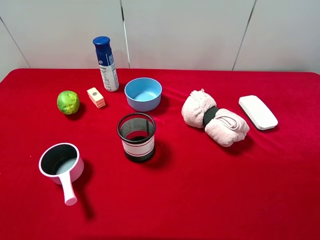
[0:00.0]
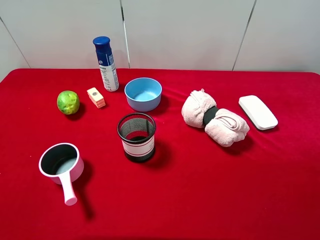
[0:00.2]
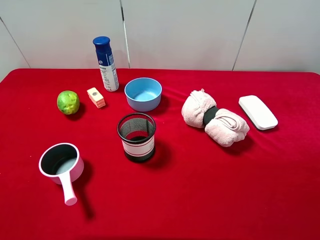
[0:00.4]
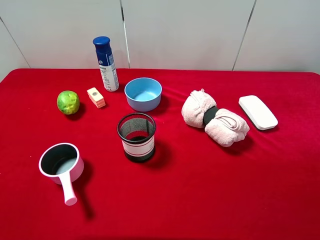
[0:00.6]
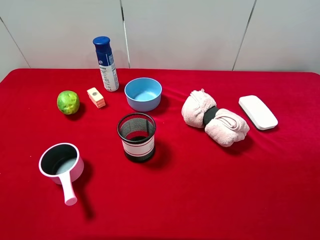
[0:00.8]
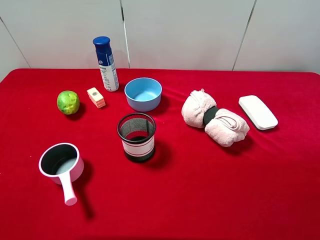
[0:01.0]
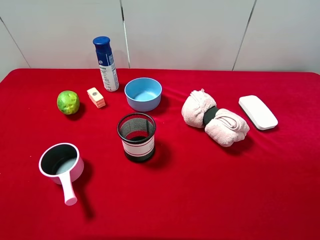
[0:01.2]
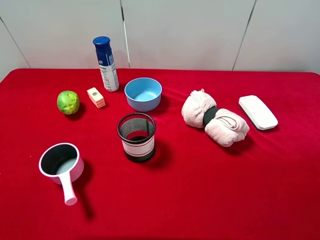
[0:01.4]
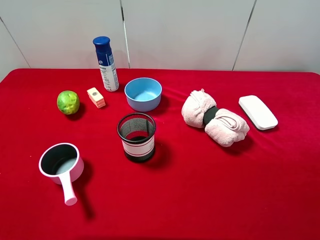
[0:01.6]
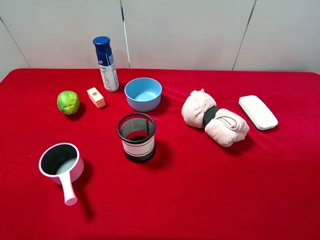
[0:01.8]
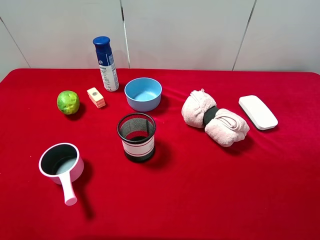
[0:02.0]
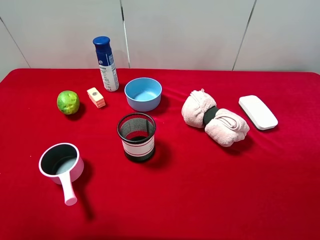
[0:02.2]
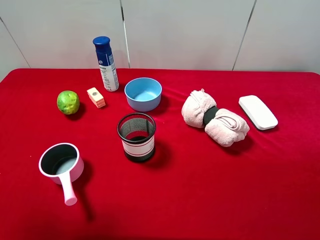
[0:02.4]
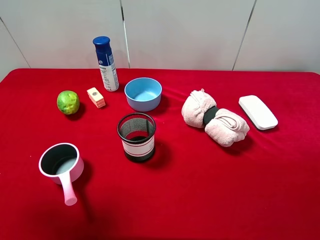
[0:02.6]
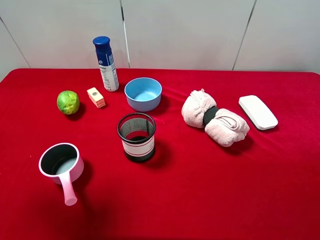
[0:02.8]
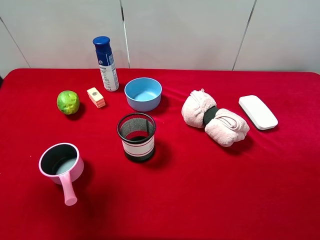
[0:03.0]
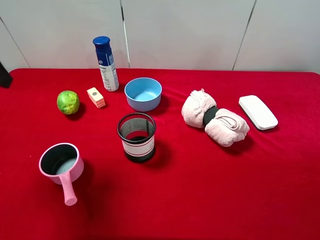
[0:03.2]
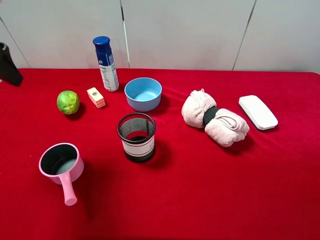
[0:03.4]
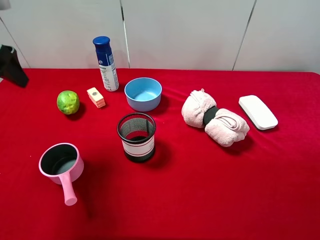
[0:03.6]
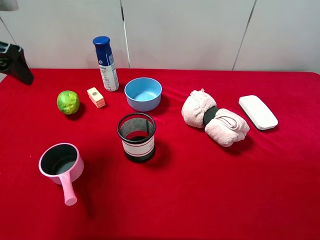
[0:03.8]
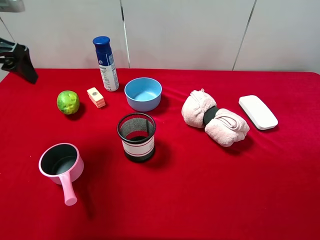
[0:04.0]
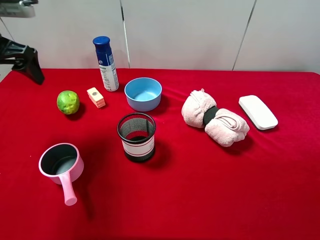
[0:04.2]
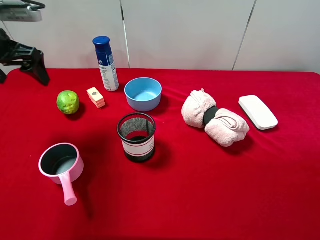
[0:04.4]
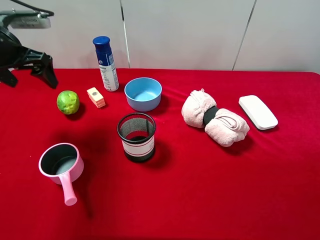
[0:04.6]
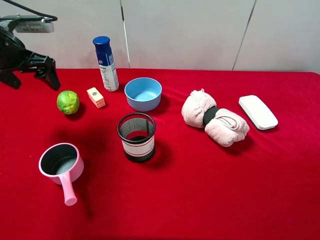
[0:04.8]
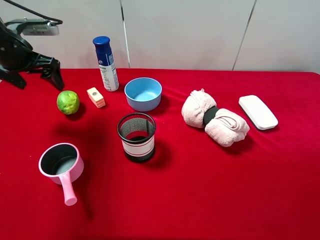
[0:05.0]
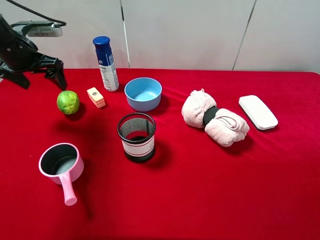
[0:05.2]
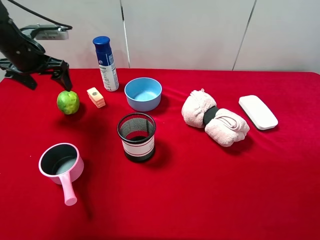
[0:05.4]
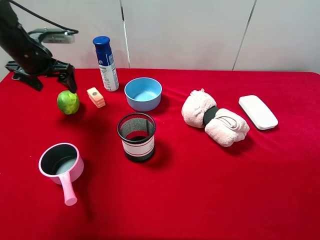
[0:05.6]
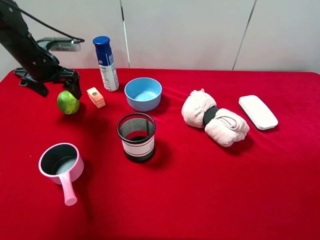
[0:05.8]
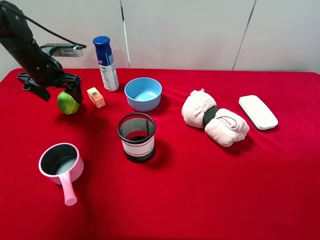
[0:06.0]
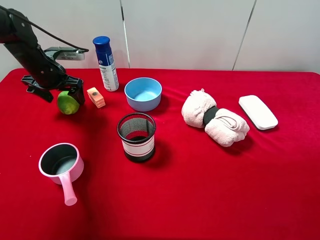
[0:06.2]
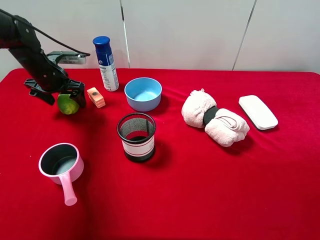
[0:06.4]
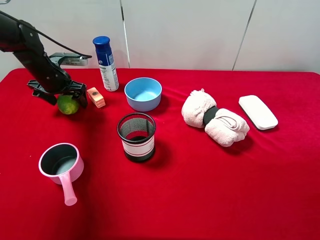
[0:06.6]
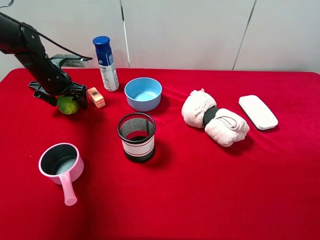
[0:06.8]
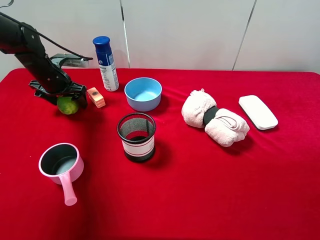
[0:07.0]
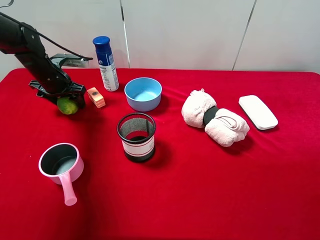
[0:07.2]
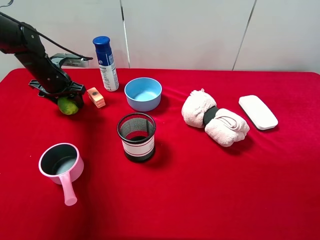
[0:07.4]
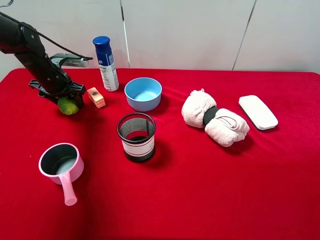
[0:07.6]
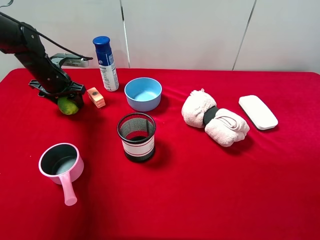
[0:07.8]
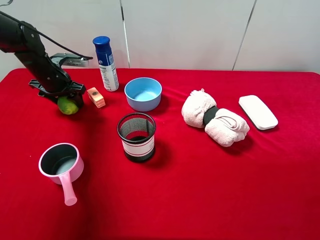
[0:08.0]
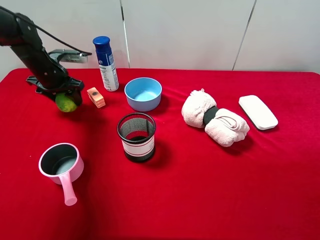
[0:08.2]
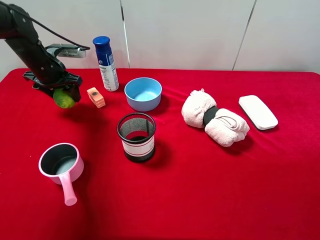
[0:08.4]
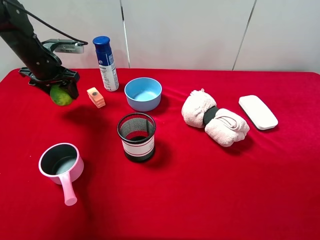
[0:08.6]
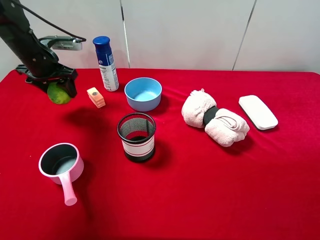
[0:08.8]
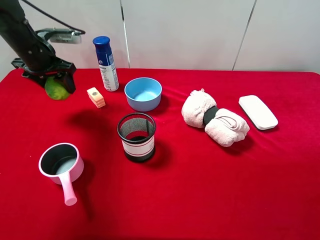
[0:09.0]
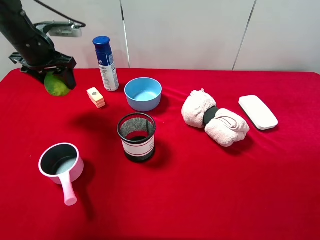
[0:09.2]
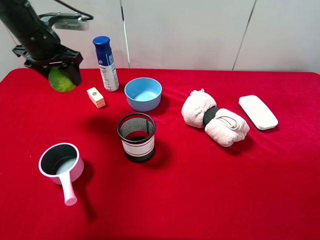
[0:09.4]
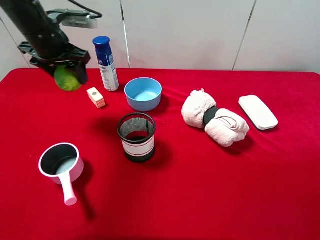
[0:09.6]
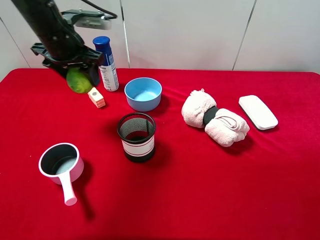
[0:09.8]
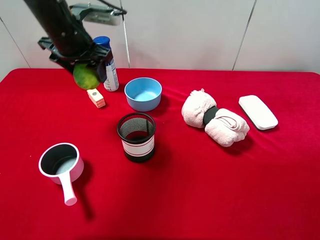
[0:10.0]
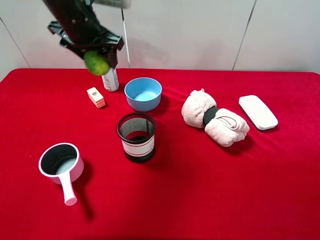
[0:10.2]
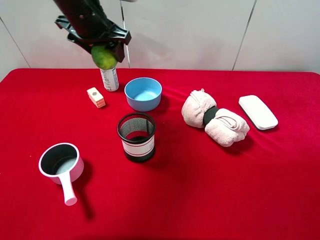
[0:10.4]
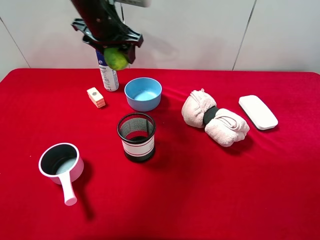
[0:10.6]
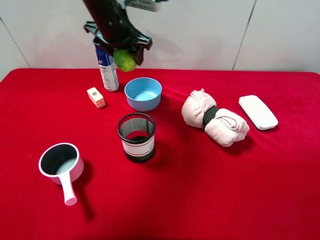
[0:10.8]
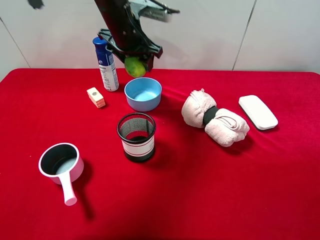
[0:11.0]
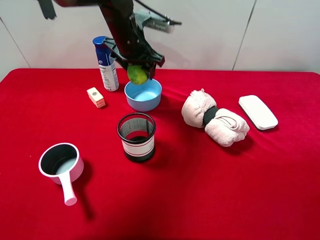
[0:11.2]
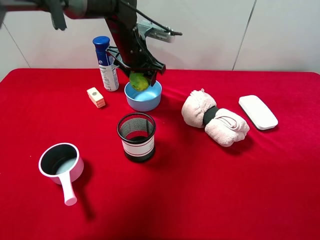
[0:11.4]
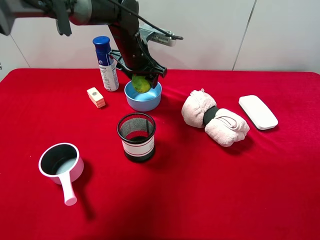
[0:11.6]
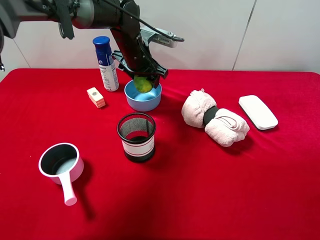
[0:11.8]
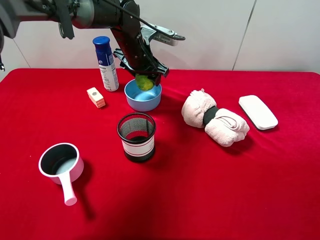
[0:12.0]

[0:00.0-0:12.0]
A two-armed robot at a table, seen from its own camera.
Task of the whole recording: pick up an item with a gripper and place it in a random container on the desktop.
0:01.6 to 0:03.0: The left gripper is displaced forward by some 20 cm.
0:03.0 to 0:04.4: The left gripper moves forward and downward, approximately 15 cm.
0:04.4 to 0:06.0: The left gripper is displaced downward and forward by about 15 cm.
0:06.0 to 0:07.6: The left gripper closes its fingers.
0:07.6 to 0:09.0: The left gripper is displaced upward by about 10 cm.
0:09.0 to 0:10.4: The left gripper moves to the right and upward, about 15 cm.
0:10.4 to 0:12.0: The left gripper goes about 15 cm downward, to the right and forward.

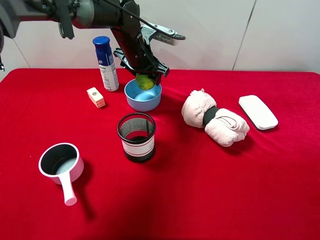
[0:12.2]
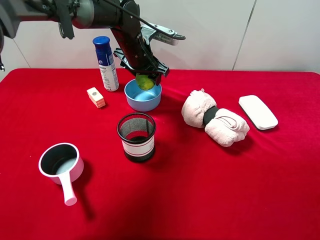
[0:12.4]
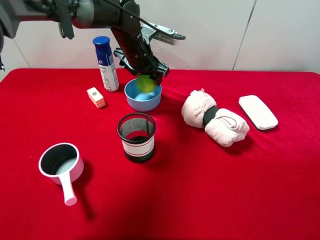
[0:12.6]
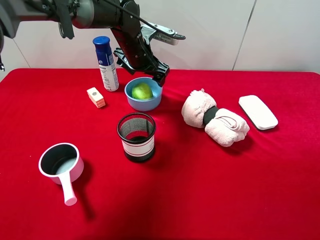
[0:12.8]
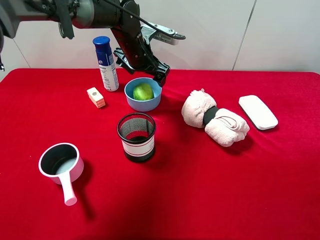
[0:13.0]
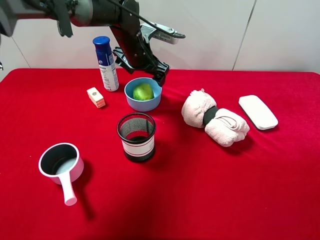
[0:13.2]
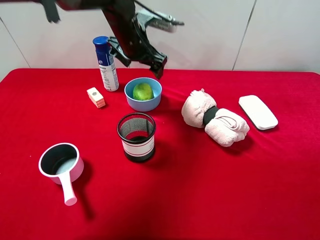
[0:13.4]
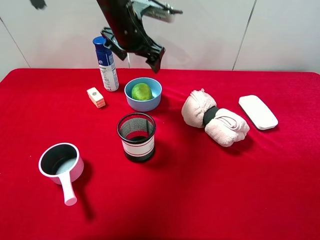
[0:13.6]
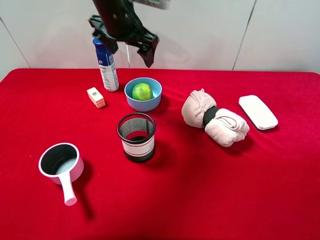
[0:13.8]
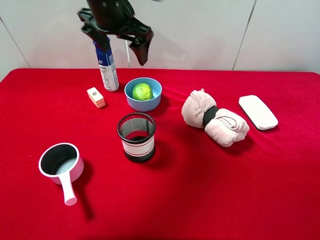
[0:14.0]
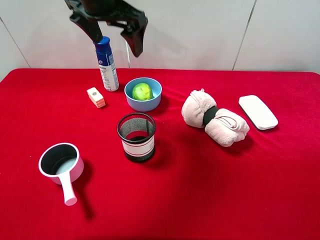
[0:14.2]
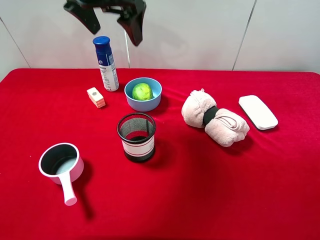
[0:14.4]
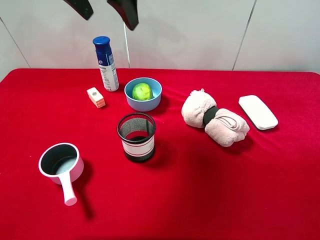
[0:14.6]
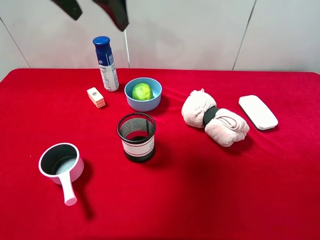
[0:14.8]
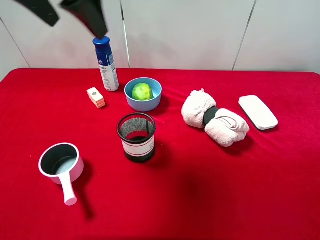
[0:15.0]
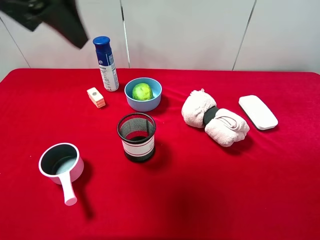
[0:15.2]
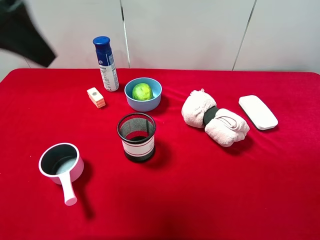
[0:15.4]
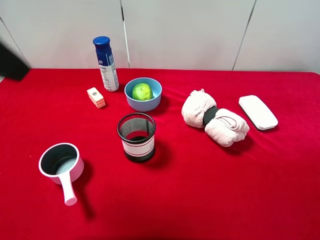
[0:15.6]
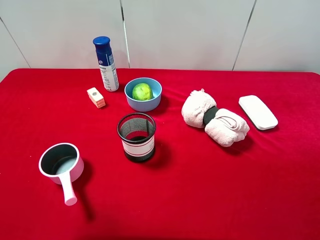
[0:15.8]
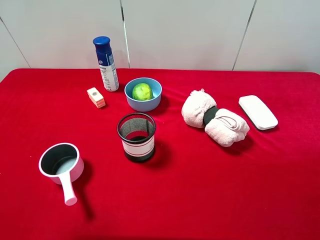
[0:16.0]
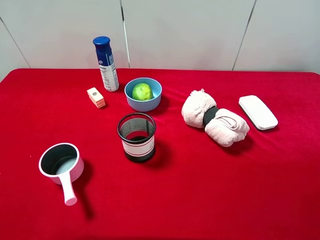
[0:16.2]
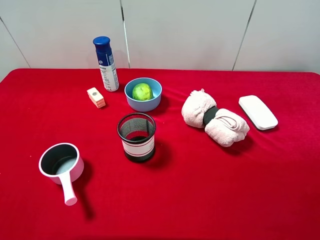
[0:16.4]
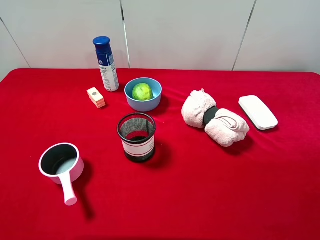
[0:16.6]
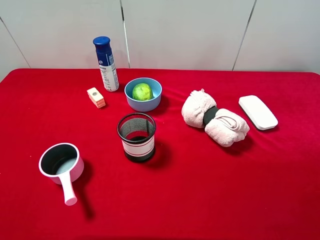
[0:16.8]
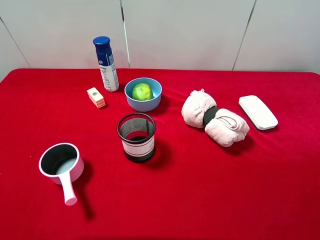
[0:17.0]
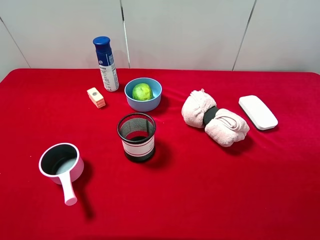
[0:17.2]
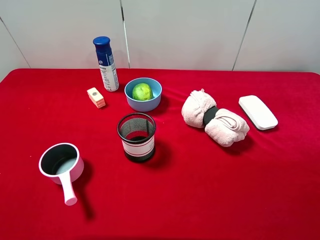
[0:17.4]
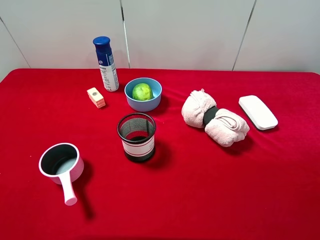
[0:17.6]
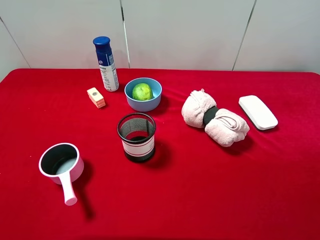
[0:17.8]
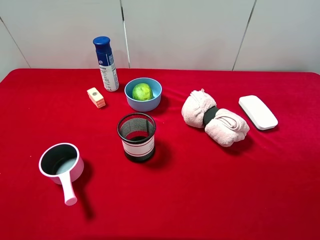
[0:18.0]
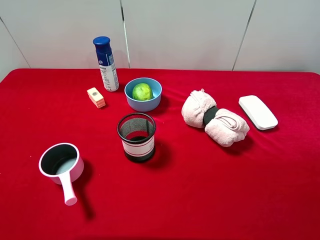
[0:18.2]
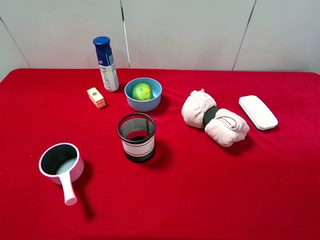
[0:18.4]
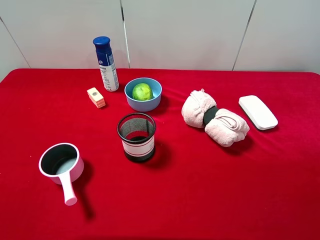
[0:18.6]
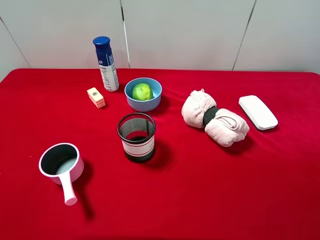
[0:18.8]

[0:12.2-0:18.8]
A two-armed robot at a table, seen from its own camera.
Task of the whole recording: pick up an item with a gripper and place it in a random container on the desktop.
0:12.2 to 0:13.8: The left gripper travels upward by approximately 10 cm, and opens up.
0:13.8 to 0:15.4: The left gripper shifts some 25 cm backward, to the left and upward.
0:15.4 to 0:17.2: The left gripper moves backward, downward and to the left, about 25 cm.

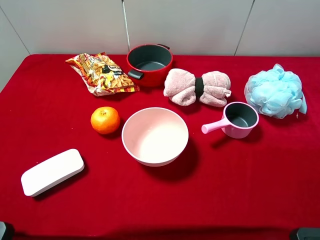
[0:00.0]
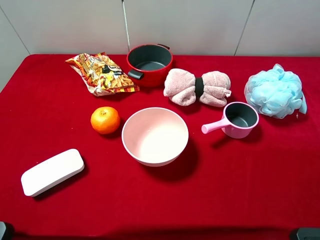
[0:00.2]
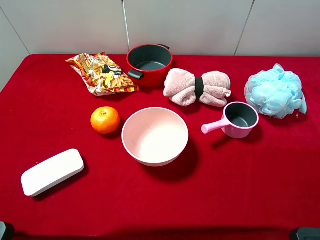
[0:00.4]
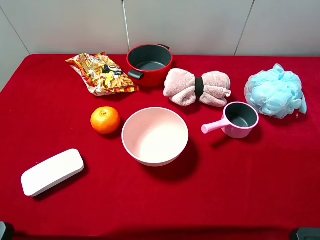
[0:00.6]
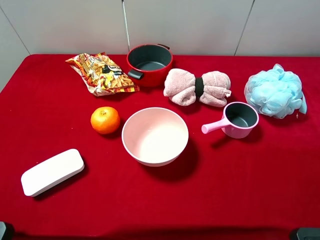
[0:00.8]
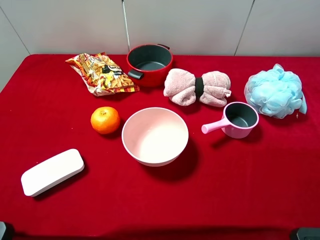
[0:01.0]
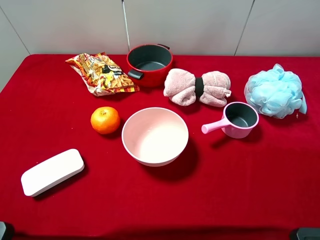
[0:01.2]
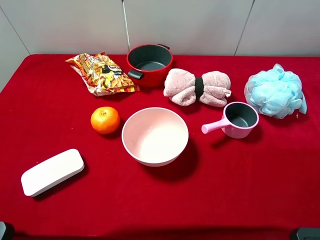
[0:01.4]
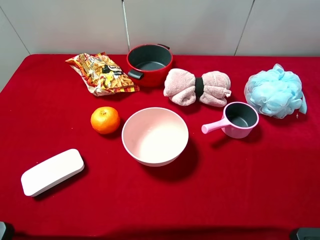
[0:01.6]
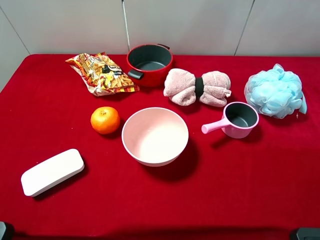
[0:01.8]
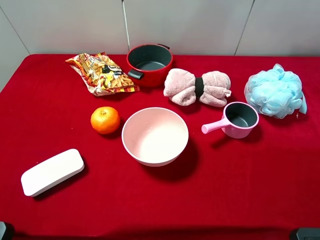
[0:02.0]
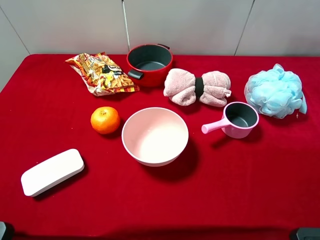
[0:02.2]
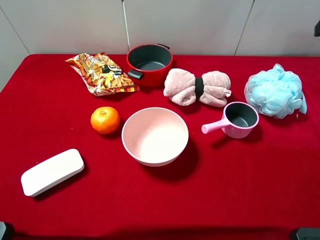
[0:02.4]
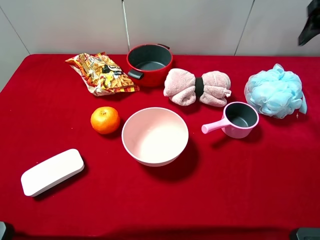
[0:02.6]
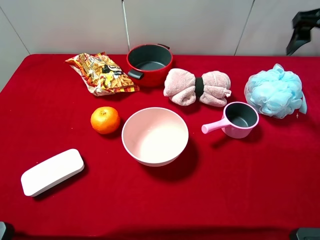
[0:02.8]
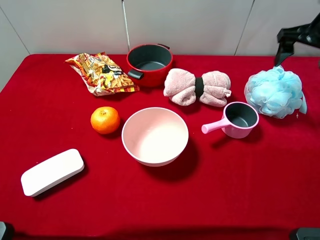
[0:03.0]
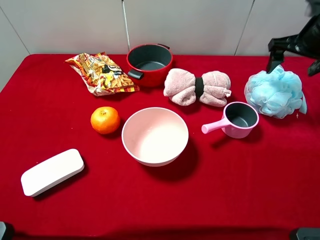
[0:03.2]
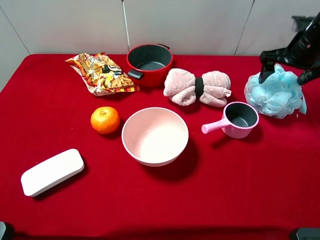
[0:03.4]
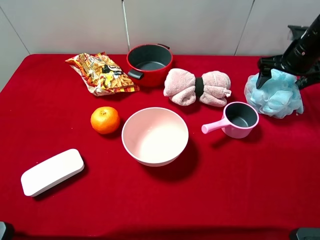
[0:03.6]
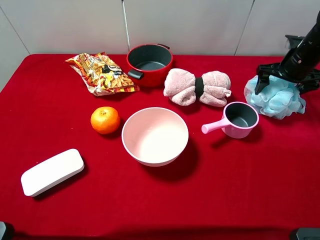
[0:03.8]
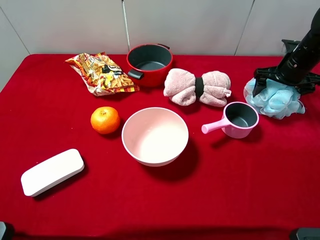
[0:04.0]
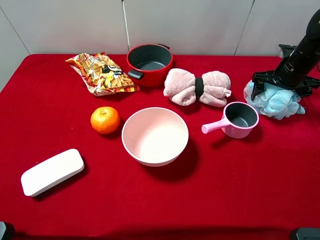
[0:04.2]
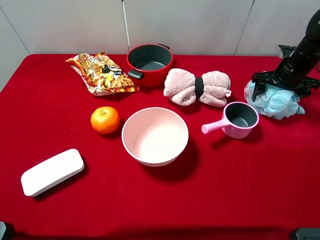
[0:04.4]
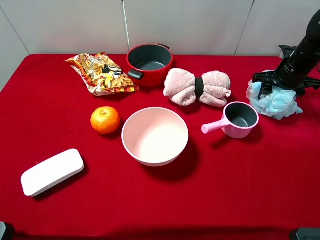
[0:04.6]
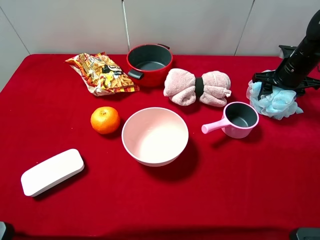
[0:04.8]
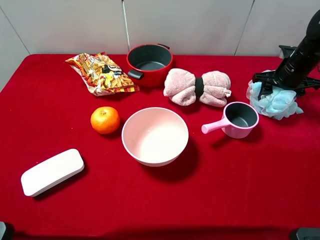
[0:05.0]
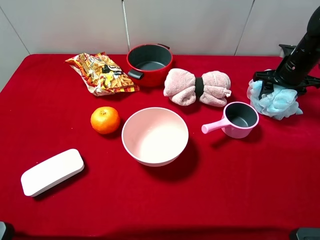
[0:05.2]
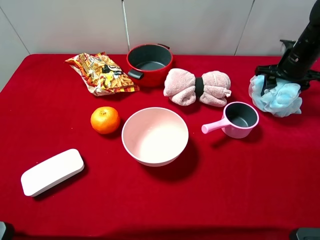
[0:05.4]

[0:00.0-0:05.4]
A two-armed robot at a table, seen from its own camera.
Task of the whole recording: pick up an item with a gripper and place it in a random container on the desktop.
0:01.4 to 0:02.8: The right gripper is displaced forward by about 25 cm.
0:02.8 to 0:04.0: The right gripper moves downward, about 15 cm.
0:04.0 to 0:05.4: The right gripper closes.
